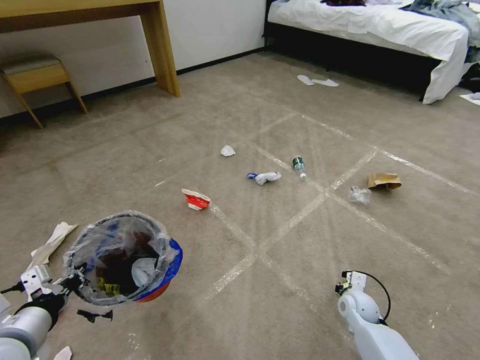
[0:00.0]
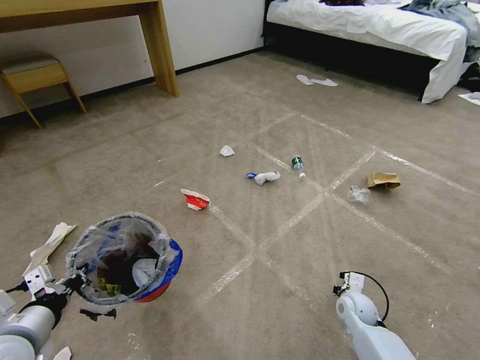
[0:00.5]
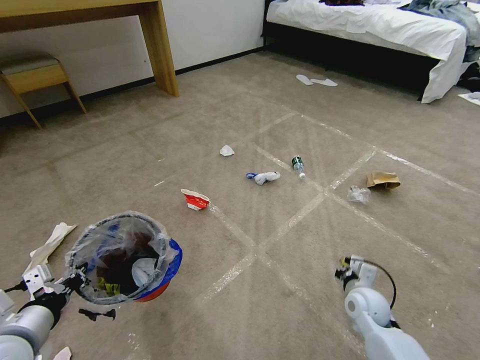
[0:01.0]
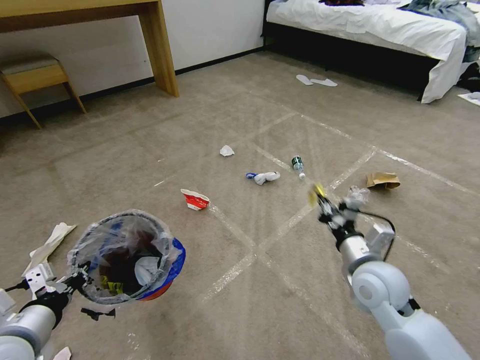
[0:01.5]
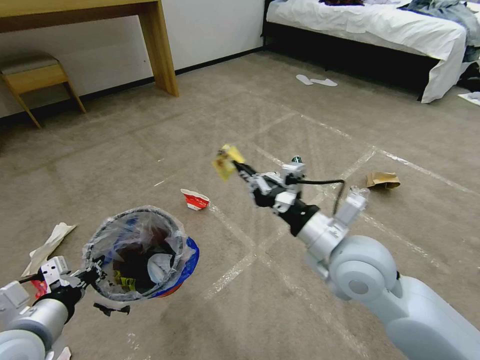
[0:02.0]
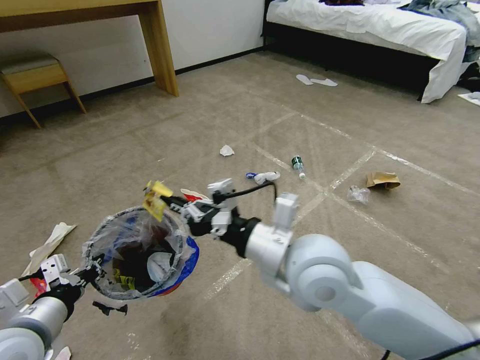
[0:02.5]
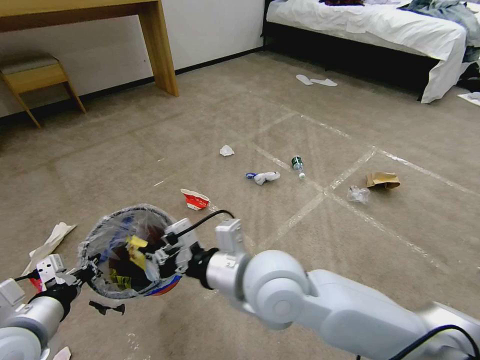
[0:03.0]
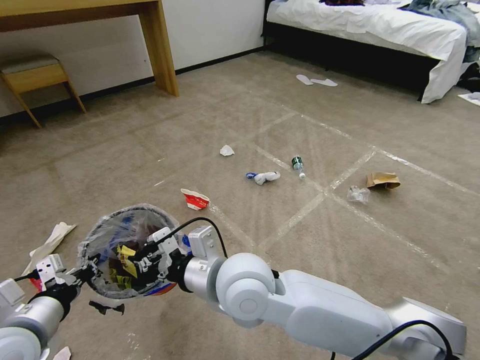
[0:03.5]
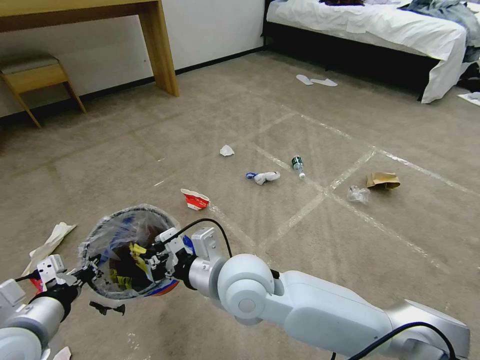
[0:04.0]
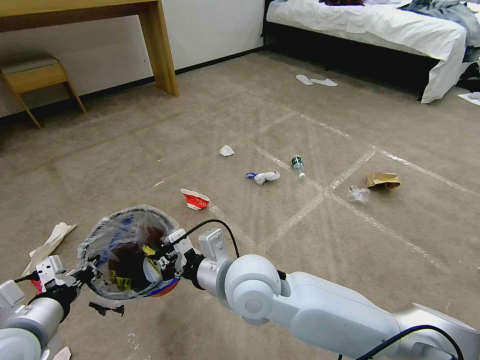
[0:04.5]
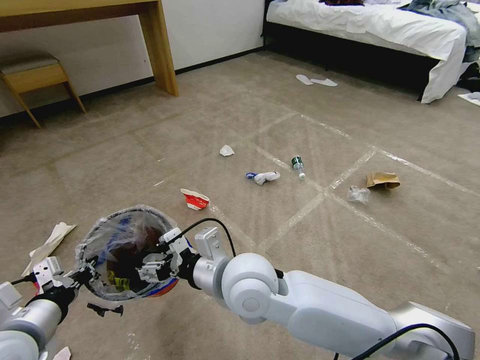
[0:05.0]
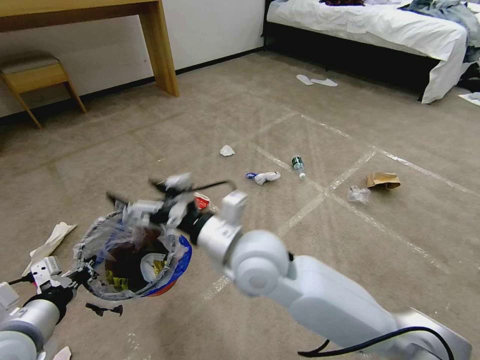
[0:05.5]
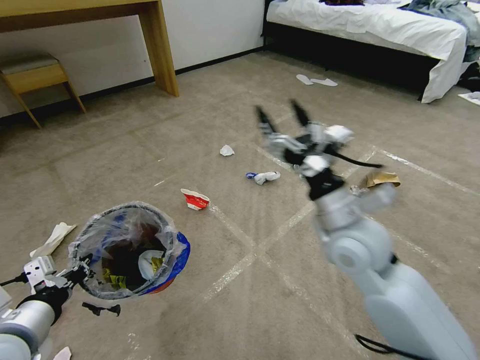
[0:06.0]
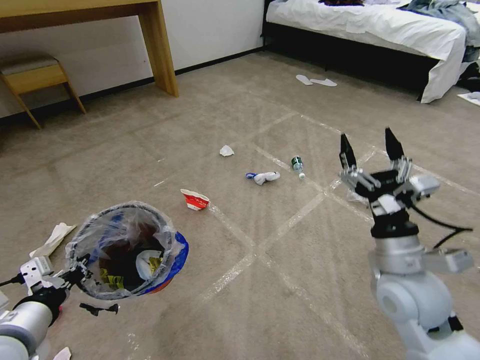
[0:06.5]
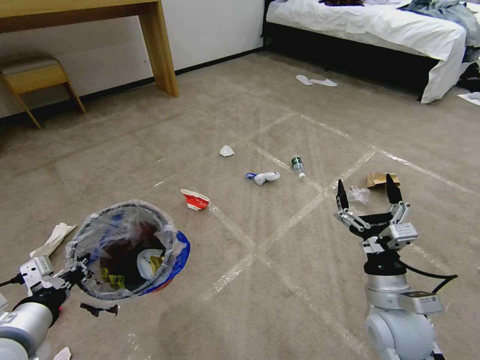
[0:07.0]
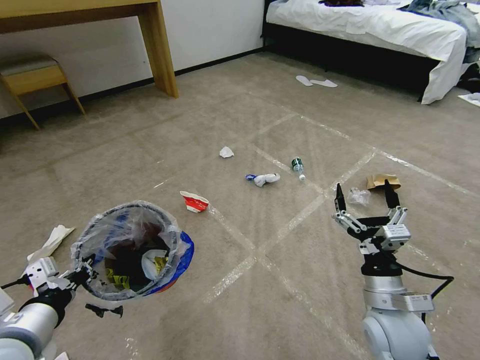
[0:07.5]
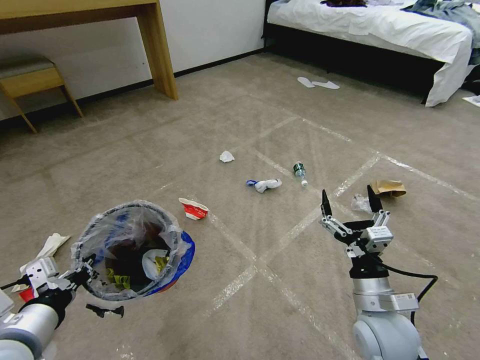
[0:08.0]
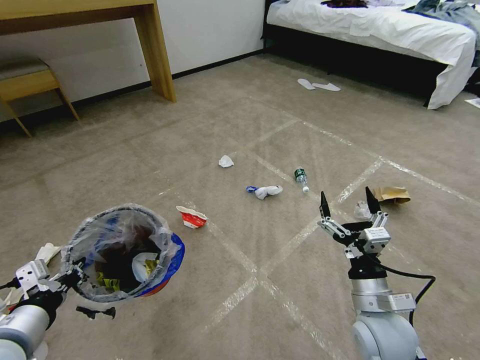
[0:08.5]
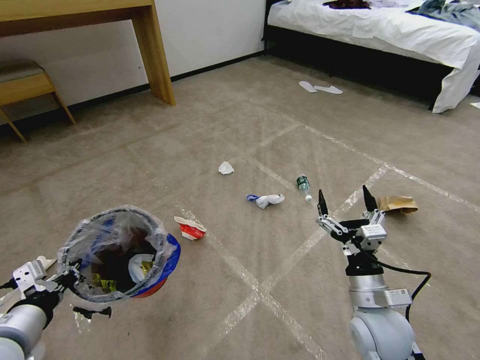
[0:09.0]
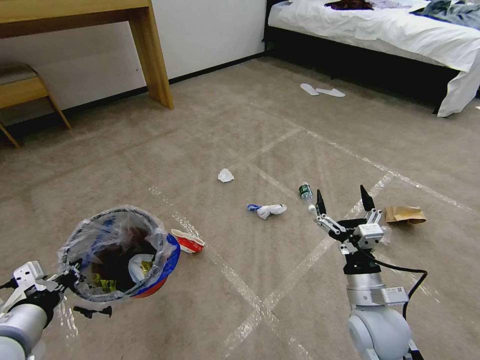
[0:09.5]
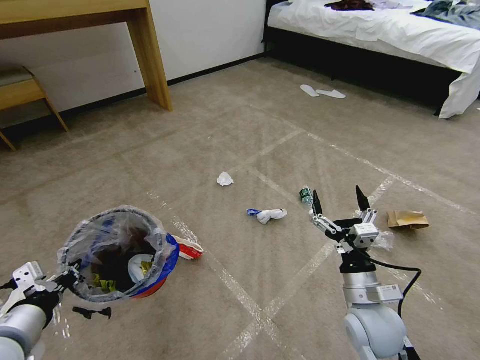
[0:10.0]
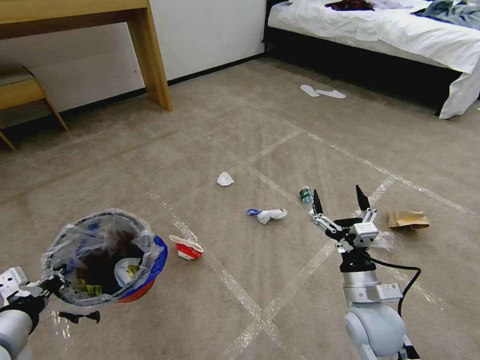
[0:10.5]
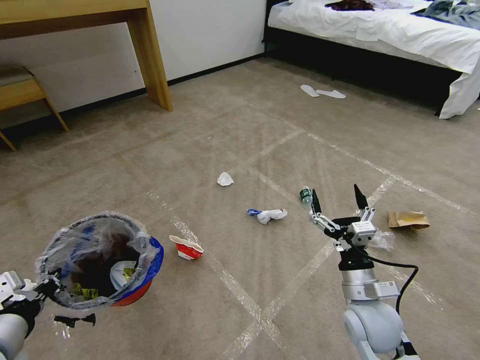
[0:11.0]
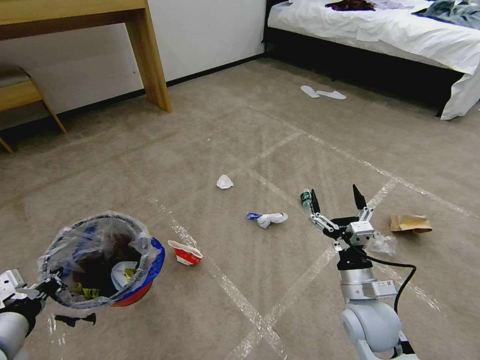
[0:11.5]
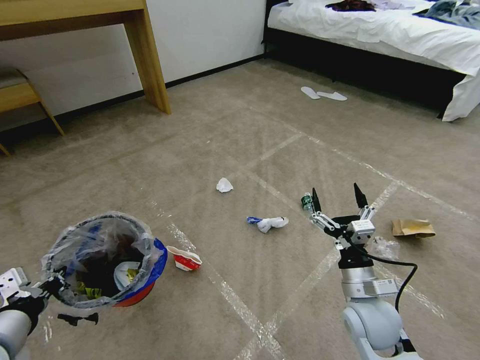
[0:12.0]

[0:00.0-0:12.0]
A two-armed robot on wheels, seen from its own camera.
Task of the whole recording: Pick up the trash bin and place the garbage on the floor into it.
0:00.0 to 0:02.0: The right gripper moves upward and to the left, approximately 35 cm.
0:02.0 to 0:04.0: The right gripper is displaced to the left by roughly 20 cm.
0:04.0 to 0:06.0: The right gripper moves to the right, approximately 20 cm, and opens.
0:06.0 to 0:08.0: The right gripper travels downward, backward and to the right by some 20 cm.
0:10.0 to 0:12.0: The grippers move only a little.

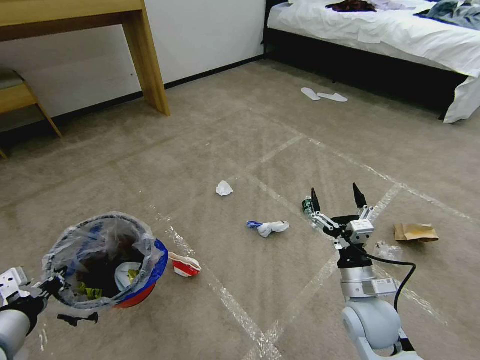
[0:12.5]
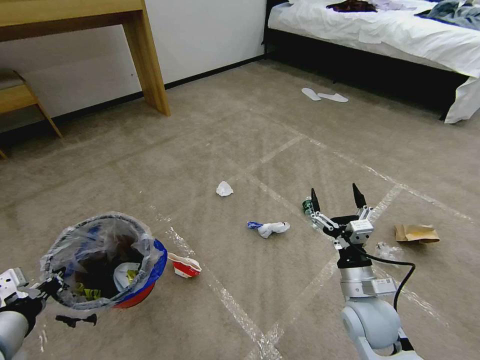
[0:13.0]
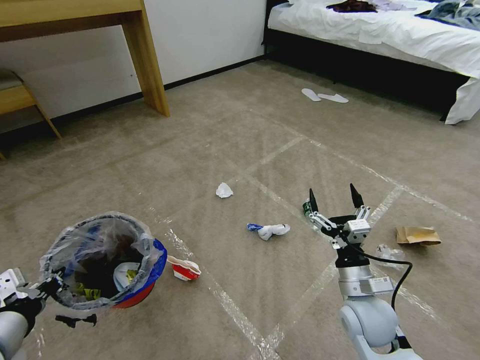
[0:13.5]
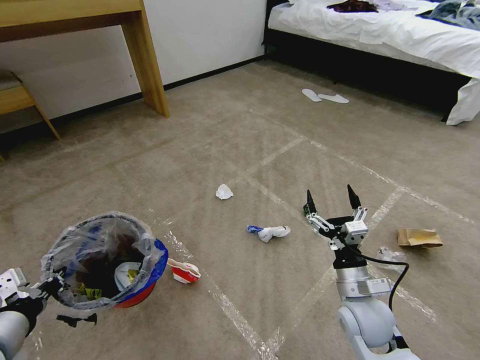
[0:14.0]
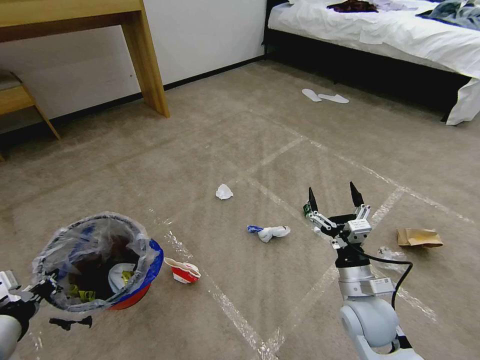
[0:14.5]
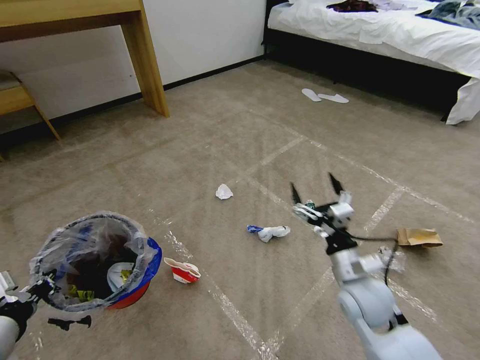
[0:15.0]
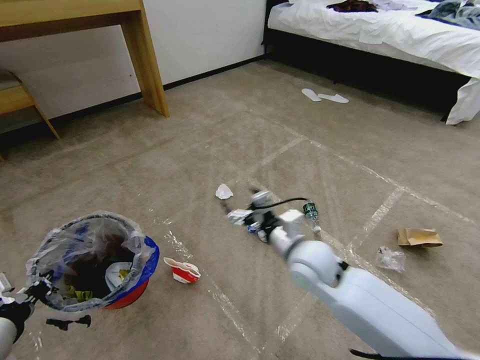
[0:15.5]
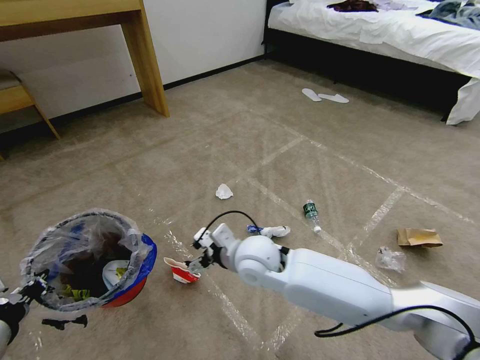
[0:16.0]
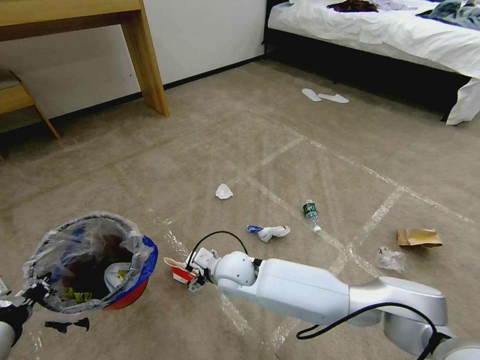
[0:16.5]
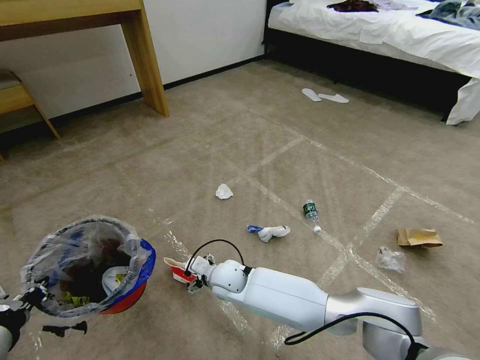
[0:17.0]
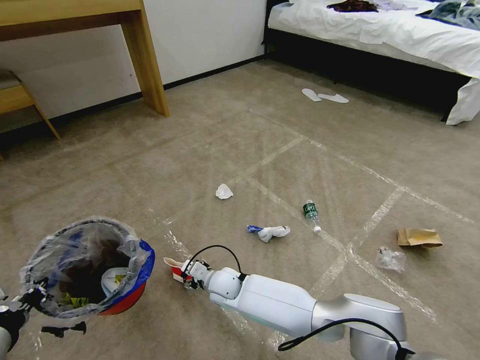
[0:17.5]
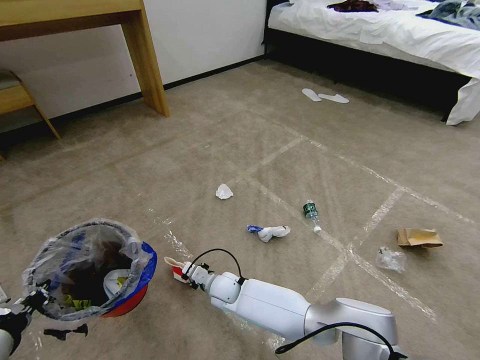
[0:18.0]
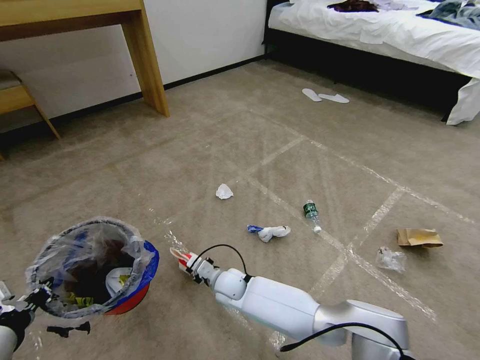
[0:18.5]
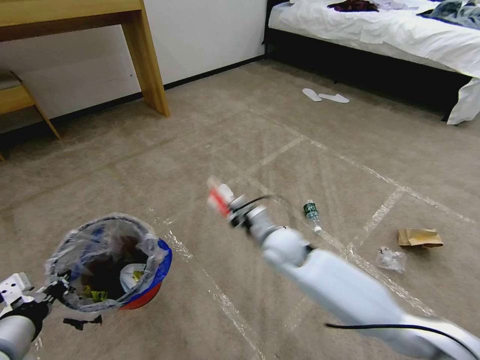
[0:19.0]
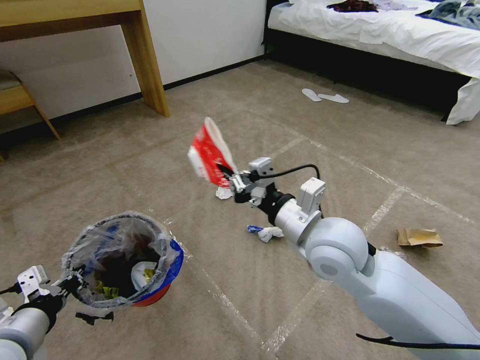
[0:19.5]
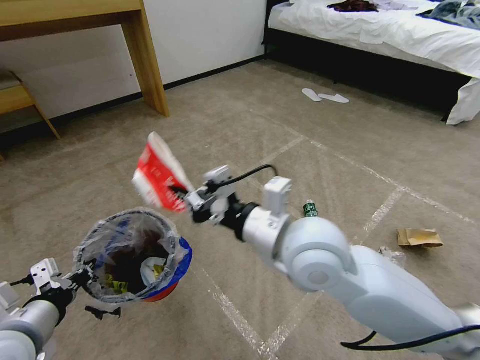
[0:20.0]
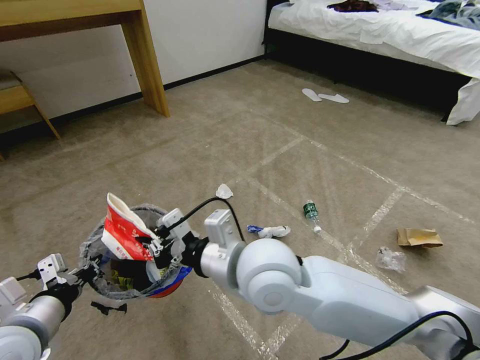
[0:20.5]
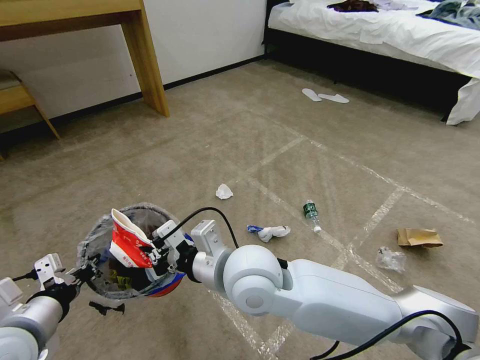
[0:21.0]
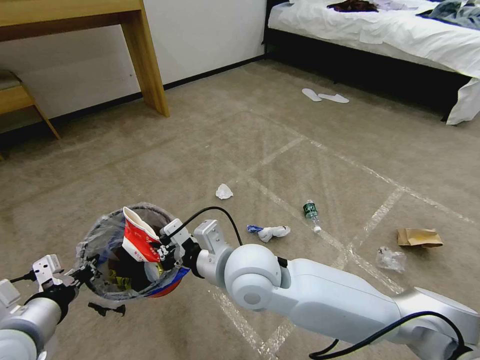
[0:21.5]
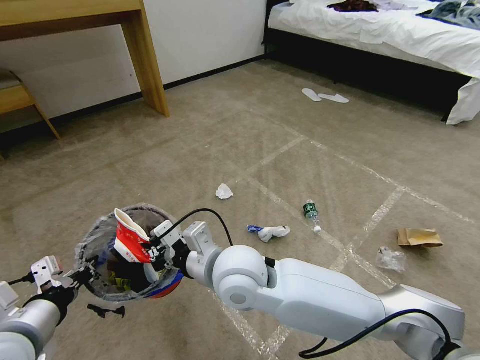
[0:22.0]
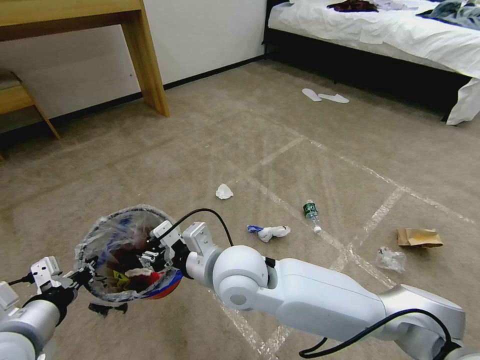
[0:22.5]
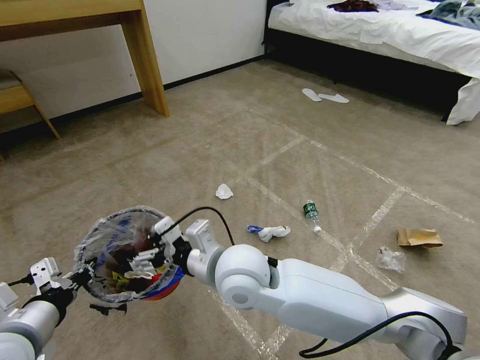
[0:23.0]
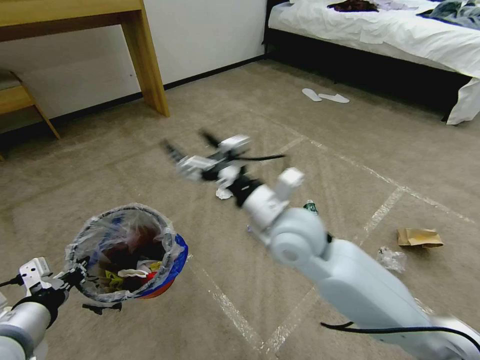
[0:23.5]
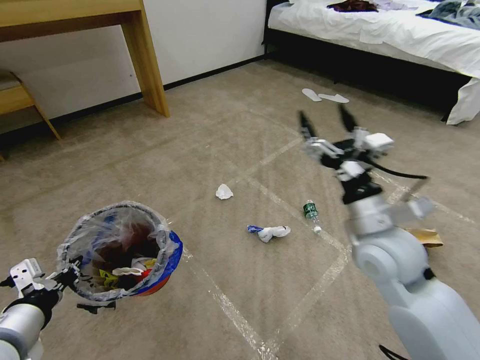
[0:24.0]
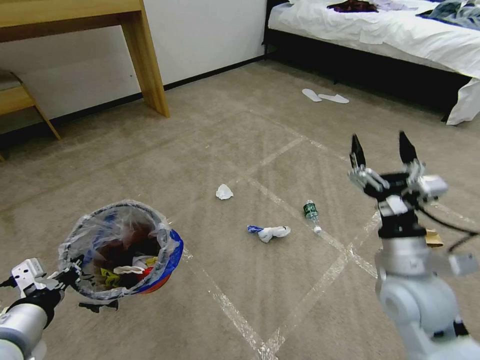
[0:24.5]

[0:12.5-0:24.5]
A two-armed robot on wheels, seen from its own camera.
Task of the whole recording: Pick up the trash bin and place the garbage on the floor into it.
0:12.5 to 0:14.5: Both grippers stay about where they are.
0:14.5 to 0:16.5: The right gripper heads to the left and forward, covering approximately 30 cm.
0:16.5 to 0:18.5: The right gripper is displaced downward by about 15 cm, and closes its fingers.
0:18.5 to 0:20.5: The right gripper travels upward by some 35 cm; the left gripper ends up approximately 5 cm from where it was.
0:20.5 to 0:22.5: The right gripper moves approximately 5 cm, and opens.
0:22.5 to 0:24.5: The right gripper shifts about 30 cm to the right, and opens.

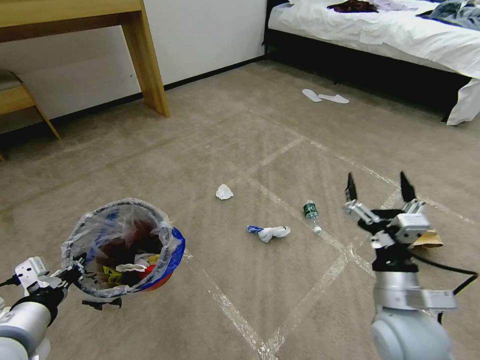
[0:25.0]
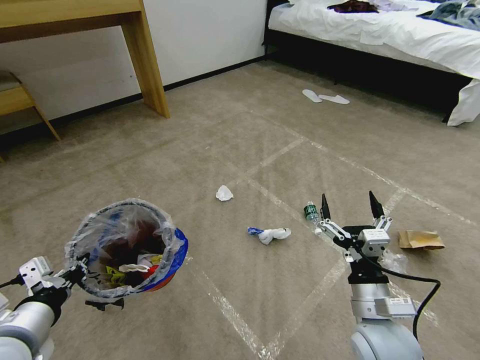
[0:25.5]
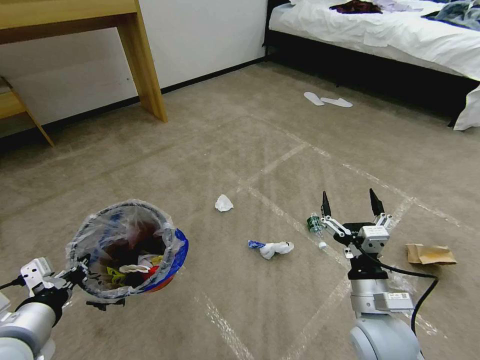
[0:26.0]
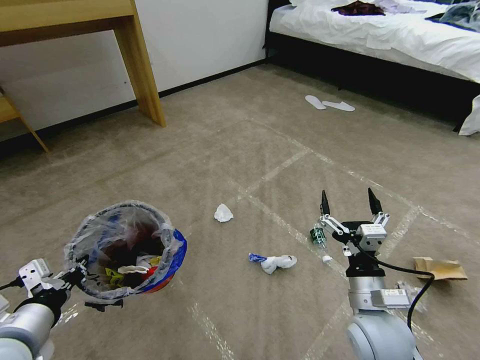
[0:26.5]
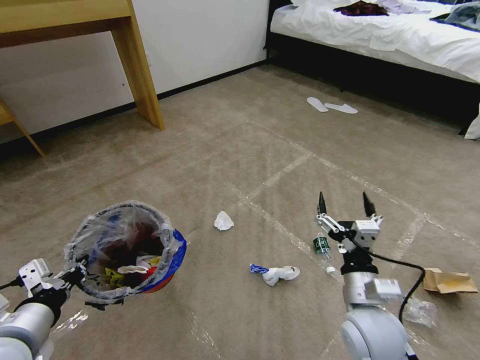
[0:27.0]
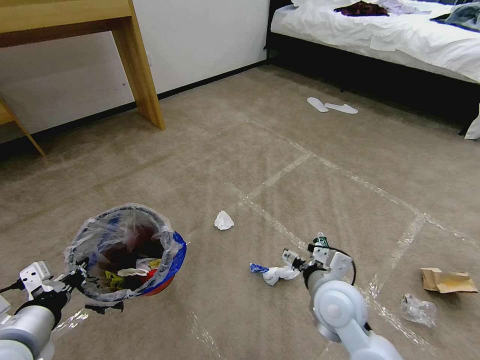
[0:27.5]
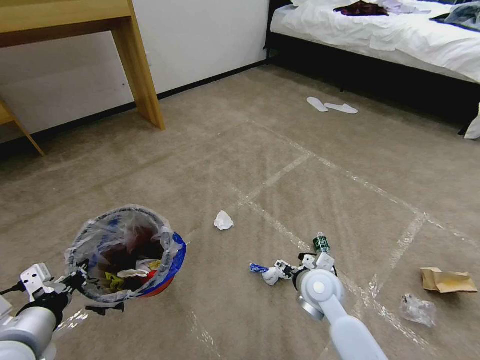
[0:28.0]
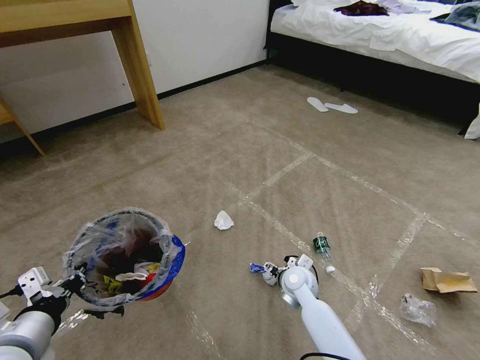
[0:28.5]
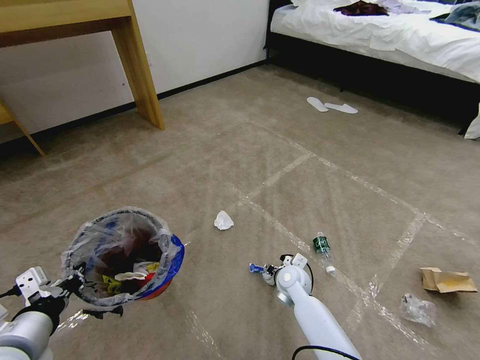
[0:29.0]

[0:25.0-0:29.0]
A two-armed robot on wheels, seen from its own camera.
Task of the whole recording: Pick up the trash bin and place the garbage on the floor into it.
0:25.0 to 0:27.0: The right gripper changes place by roughly 5 cm.
0:27.0 to 0:29.0: The right gripper moves downward, forward and to the left, roughly 25 cm.
